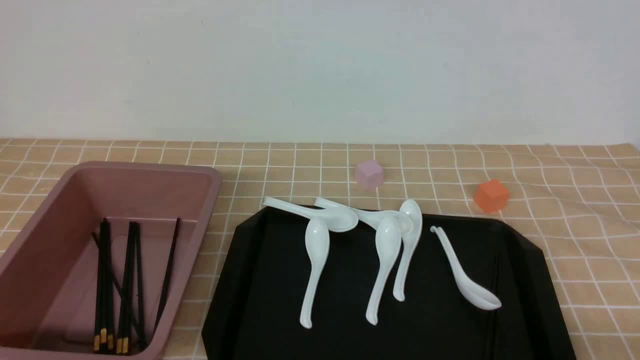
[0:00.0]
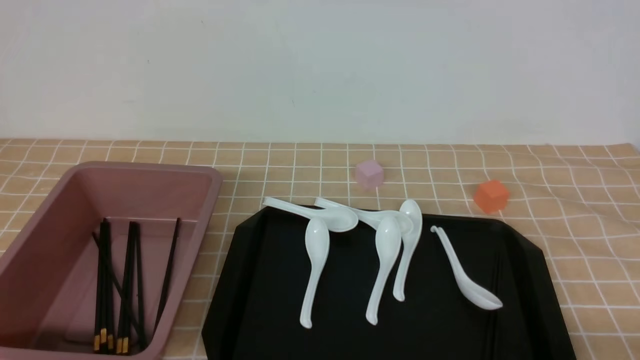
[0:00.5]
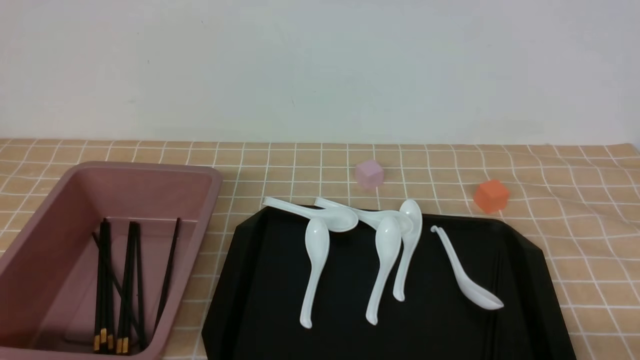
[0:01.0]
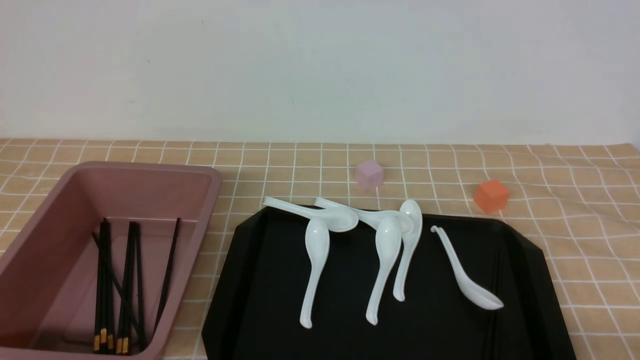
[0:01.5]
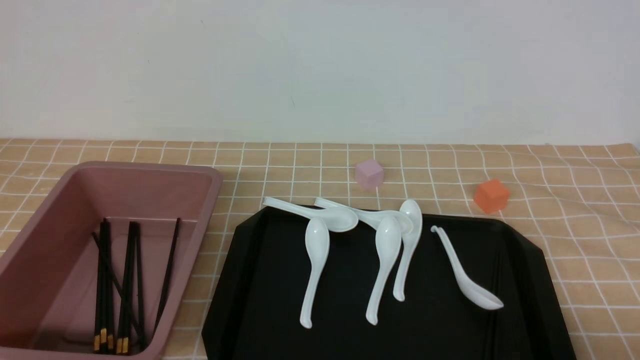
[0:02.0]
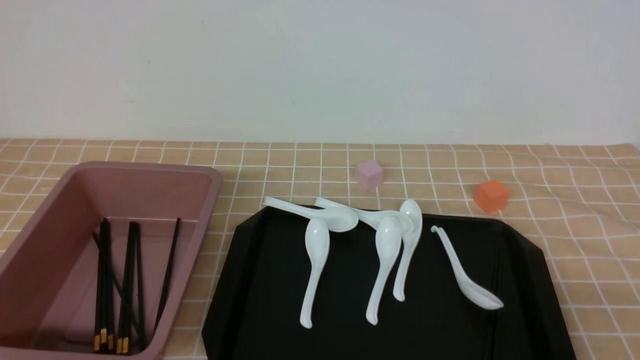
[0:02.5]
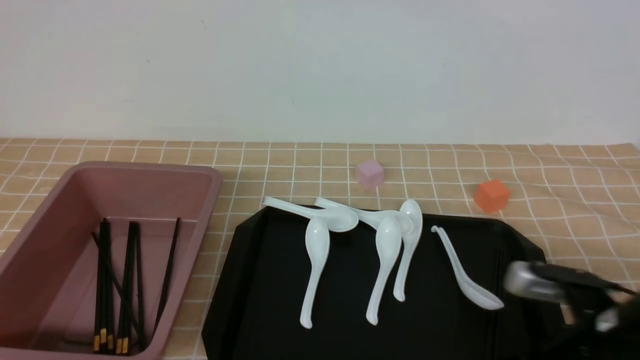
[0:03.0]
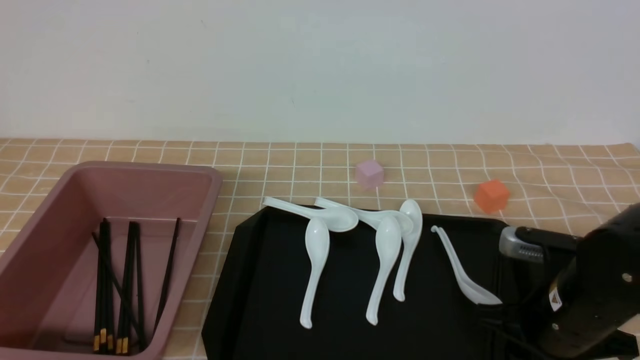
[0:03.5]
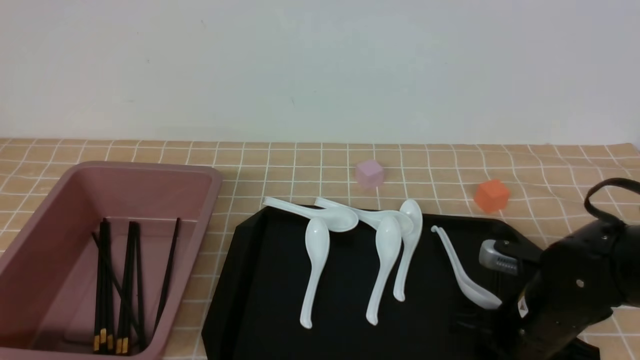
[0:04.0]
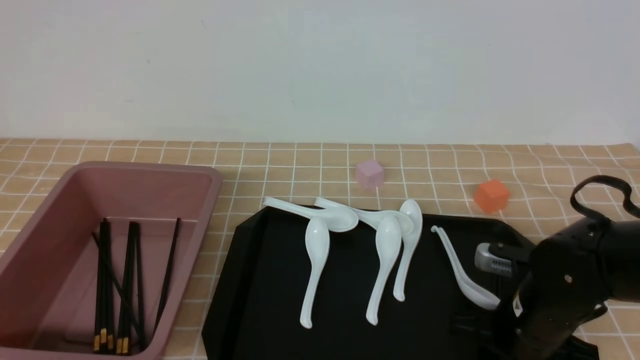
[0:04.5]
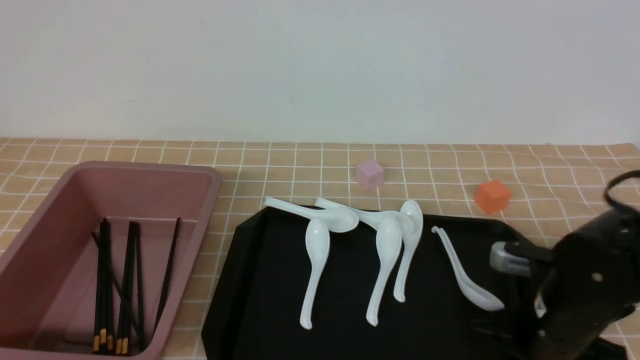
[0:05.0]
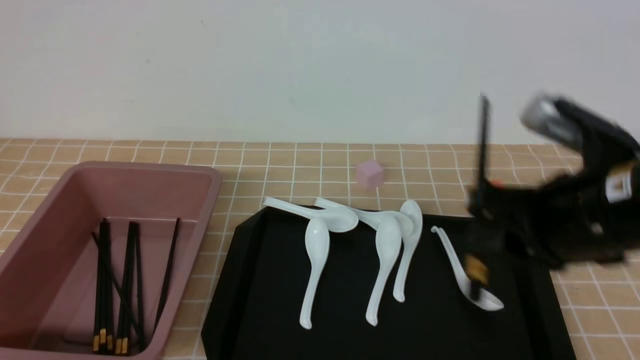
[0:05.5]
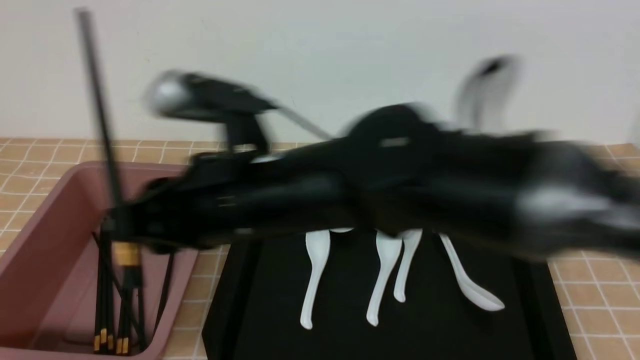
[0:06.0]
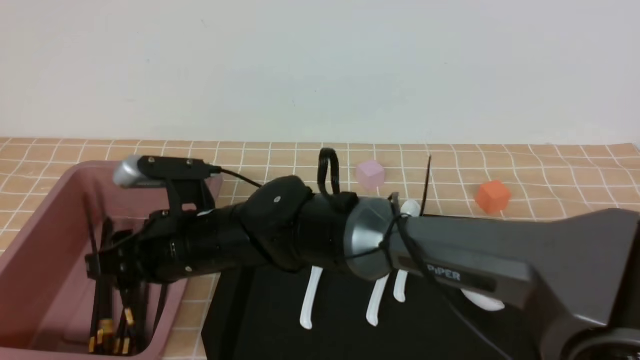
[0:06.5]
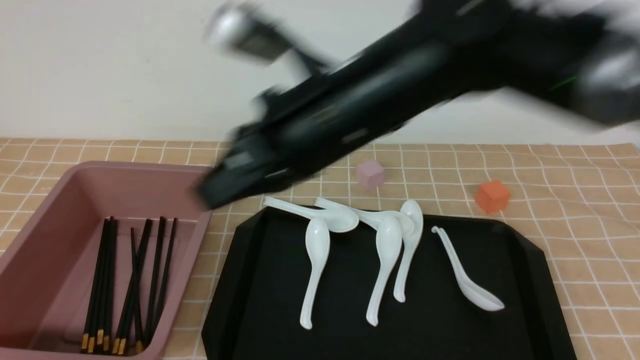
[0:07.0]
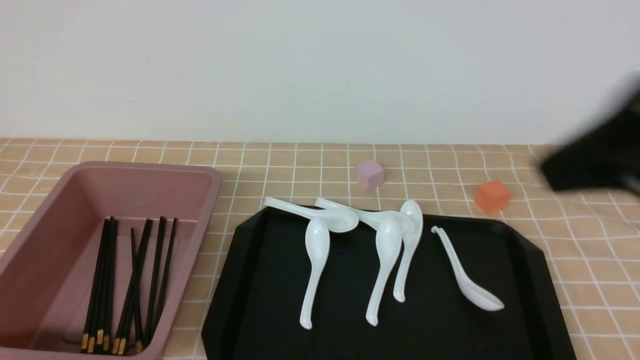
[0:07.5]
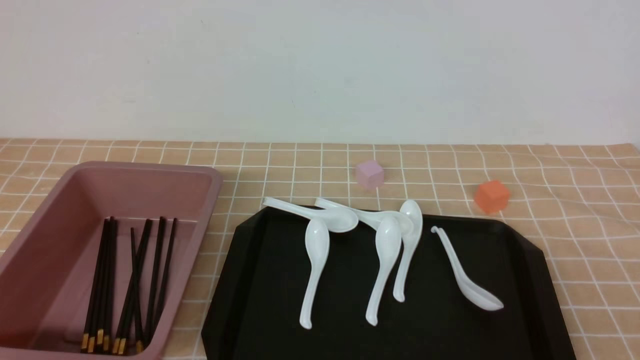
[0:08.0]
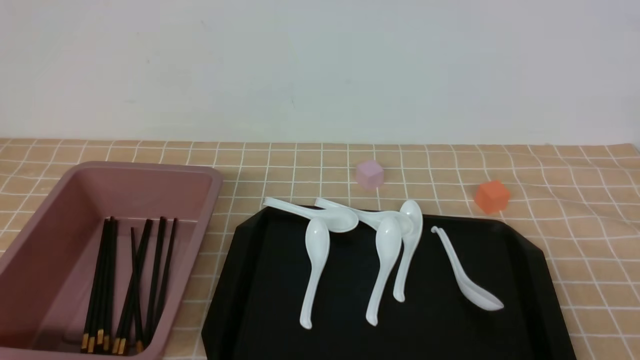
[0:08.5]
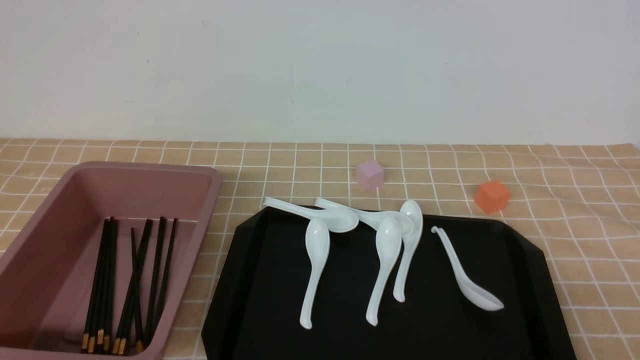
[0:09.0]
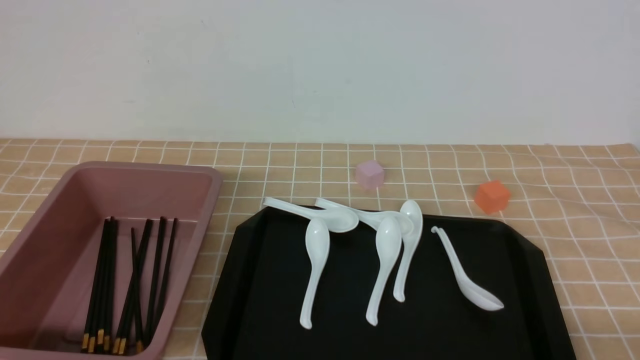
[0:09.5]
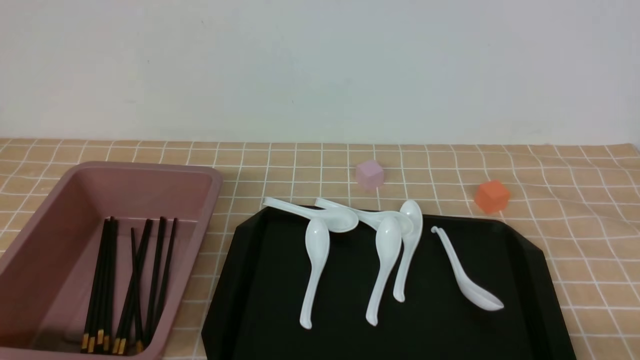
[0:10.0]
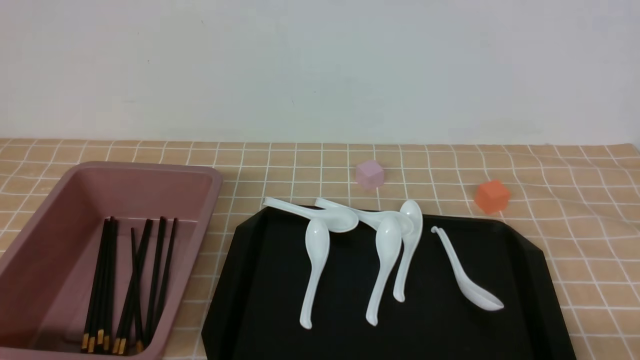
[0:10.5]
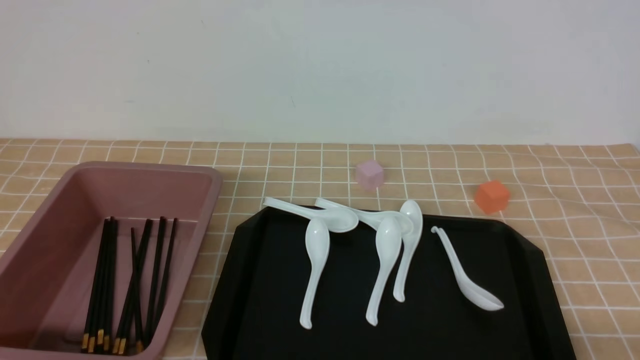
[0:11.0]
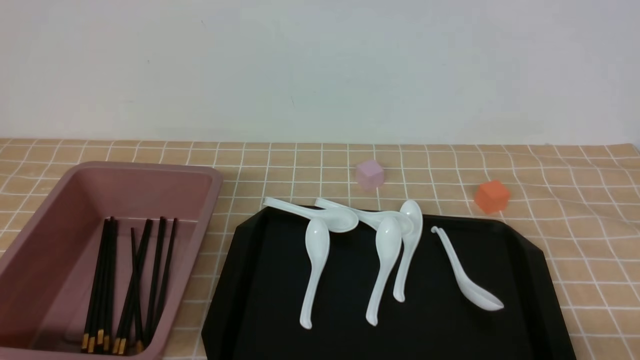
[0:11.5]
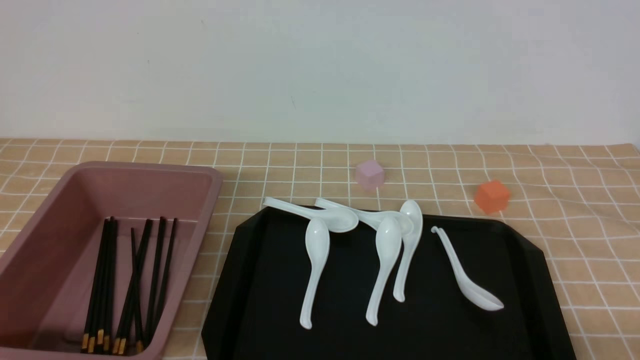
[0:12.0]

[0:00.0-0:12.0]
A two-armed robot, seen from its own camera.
Step, 0:00.0 to 0:05.0: use the right arm to grab a pair of chopsticks.
Step, 0:05.5 to 0:06.5: use the right arm to put the chopsticks into the lunch box.
0:02.0 to 0:04.0: The right gripper travels forward and to the left by roughly 20 cm, and opens.
0:04.0 to 0:06.0: The right gripper heads to the left and upward, covering some 30 cm, and closes.
0:06.0 to 0:08.0: The right gripper is displaced to the right and backward by some 35 cm, and closes up.
0:10.0 to 0:12.0: Both grippers stay about where they are.

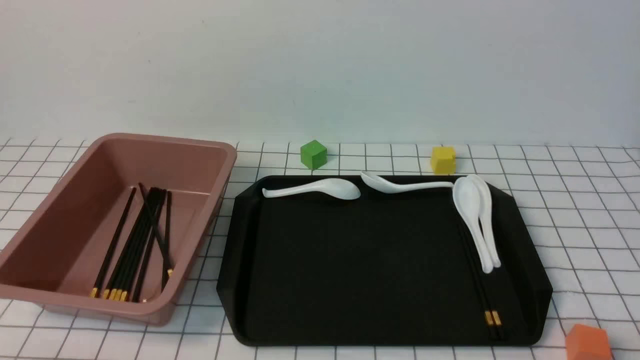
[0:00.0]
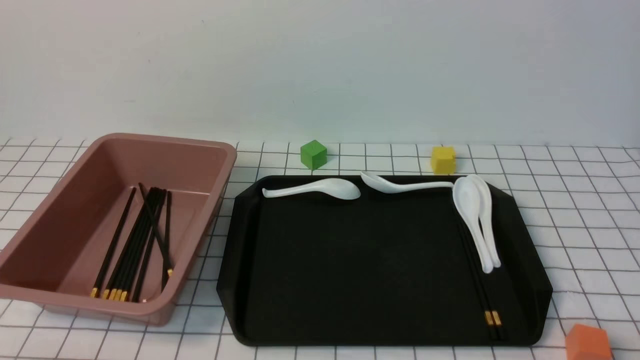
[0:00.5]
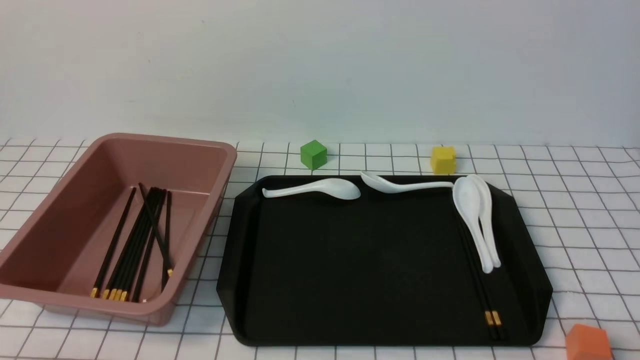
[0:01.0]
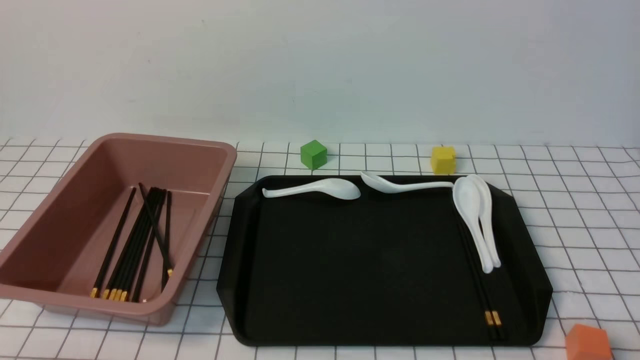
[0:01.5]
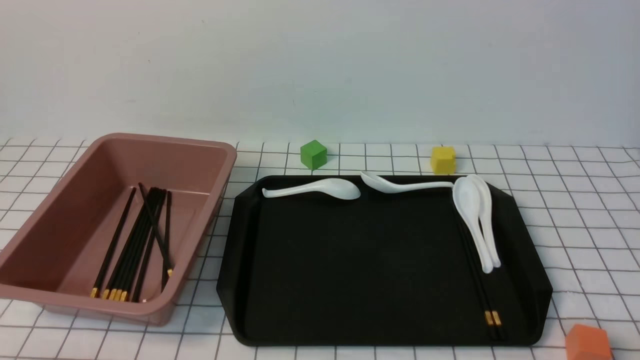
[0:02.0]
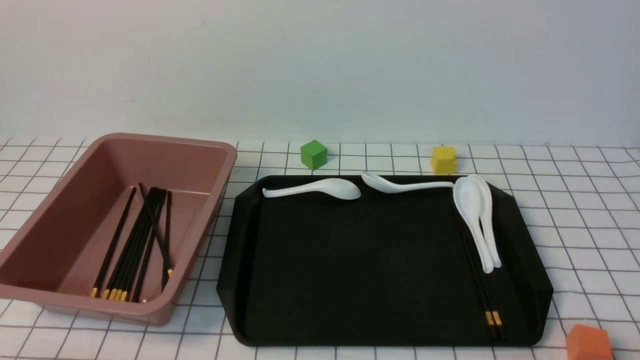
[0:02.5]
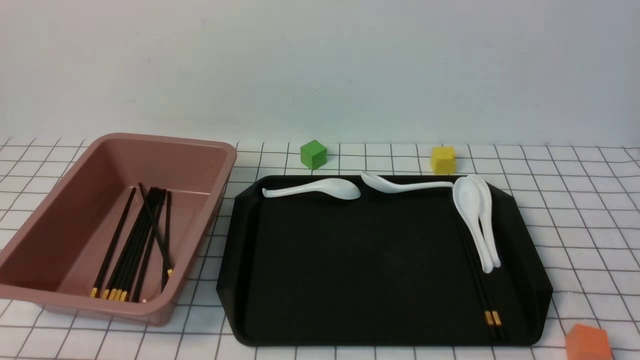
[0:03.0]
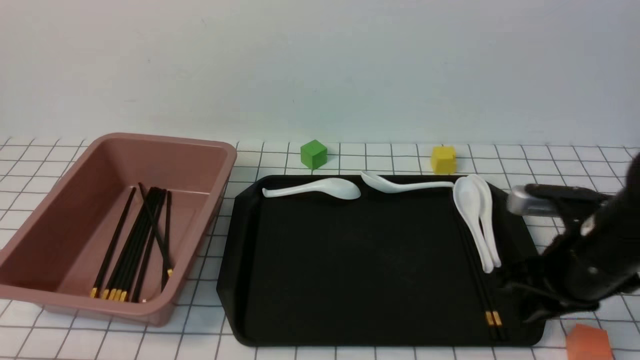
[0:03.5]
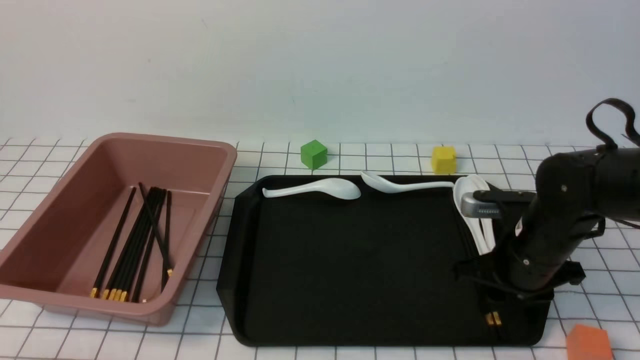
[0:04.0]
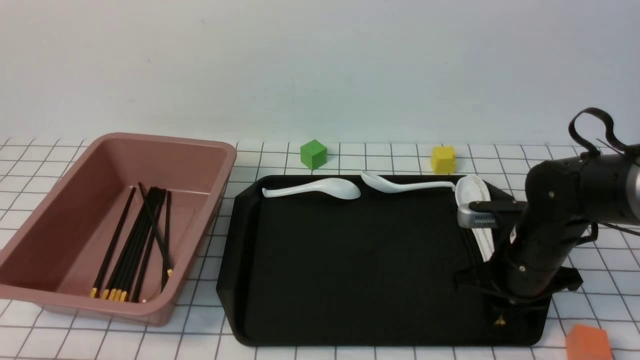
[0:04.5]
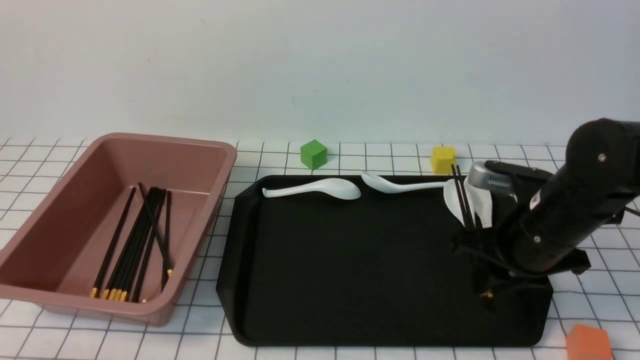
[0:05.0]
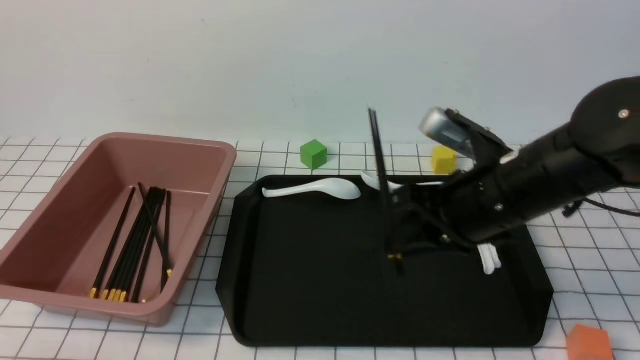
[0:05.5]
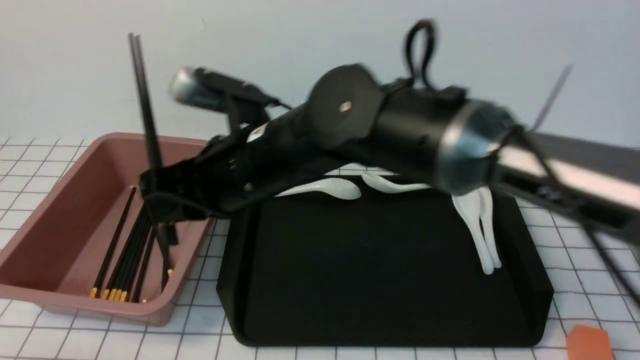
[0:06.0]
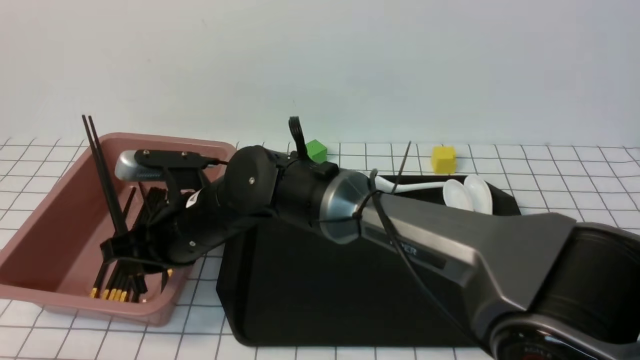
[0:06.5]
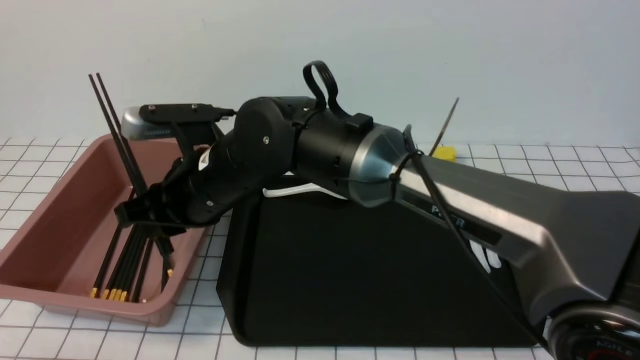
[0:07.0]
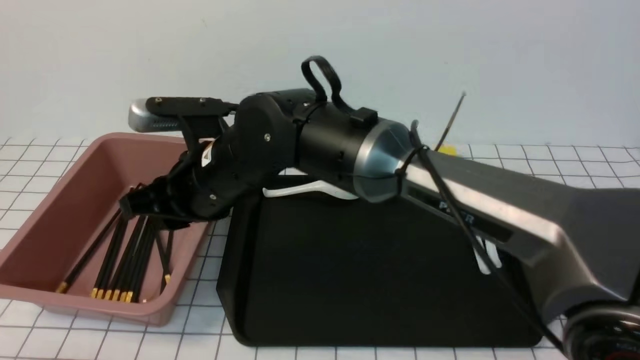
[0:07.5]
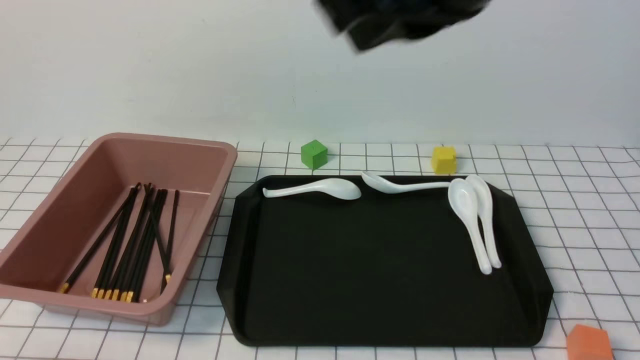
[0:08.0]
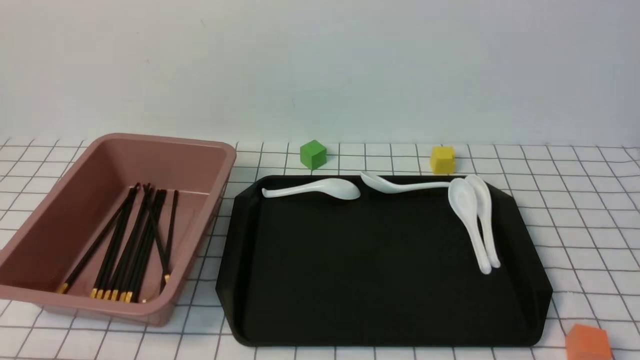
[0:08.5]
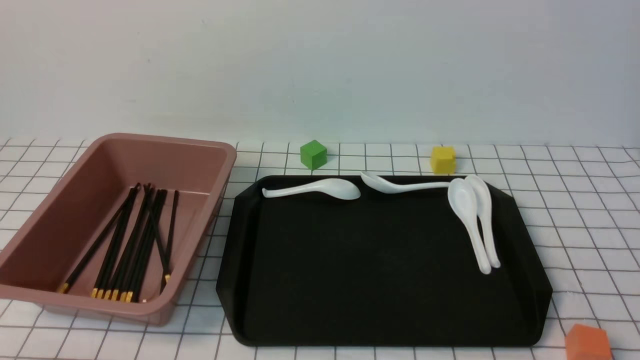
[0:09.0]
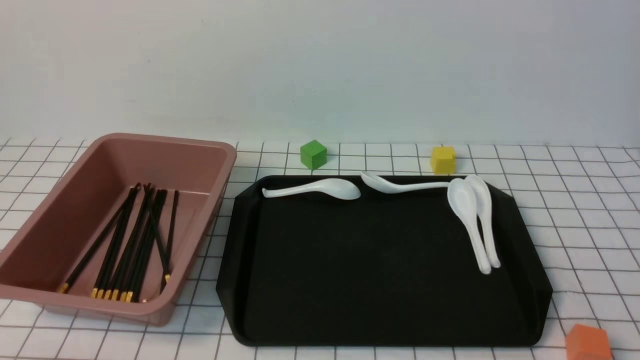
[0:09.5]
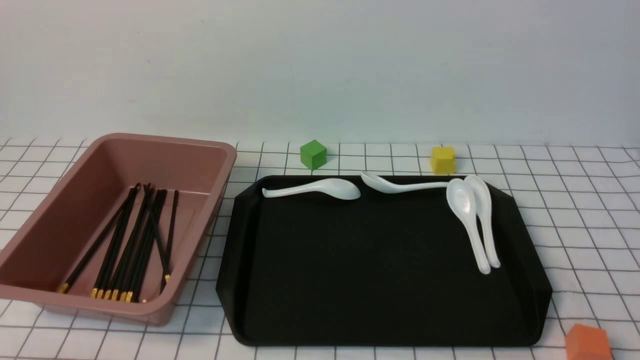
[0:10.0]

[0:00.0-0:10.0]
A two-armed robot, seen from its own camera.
Step, 0:00.0 to 0:04.5: use the right arm to grab a pair of chopsticks.
Step, 0:05.0 to 0:07.5: use the right arm to put the chopsticks into the lunch box.
0:02.0 to 0:04.0: The right gripper heads forward, covering about 25 cm, and closes, then reopens.
0:04.0 to 0:06.0: The right gripper heads to the left and upward, covering some 30 cm, and closes.
0:06.0 to 0:08.0: The right gripper heads upward, to the right and backward, covering about 30 cm, and closes its fingers.
0:08.0 to 0:10.0: The right gripper goes some 30 cm downward, to the right and backward.
